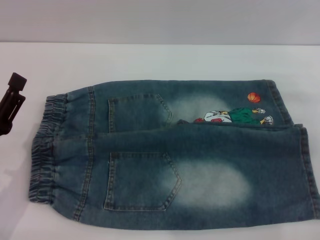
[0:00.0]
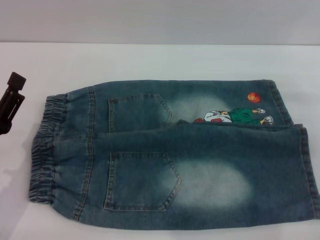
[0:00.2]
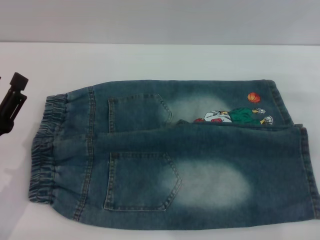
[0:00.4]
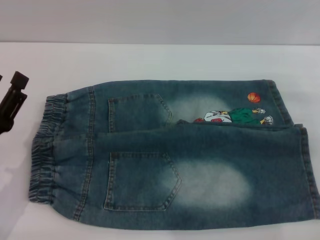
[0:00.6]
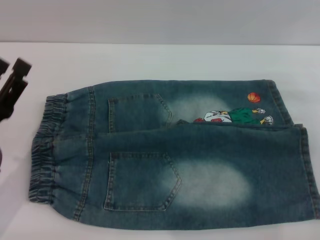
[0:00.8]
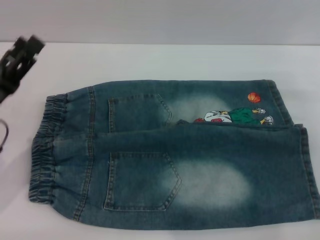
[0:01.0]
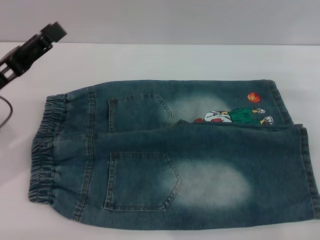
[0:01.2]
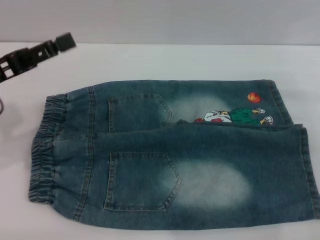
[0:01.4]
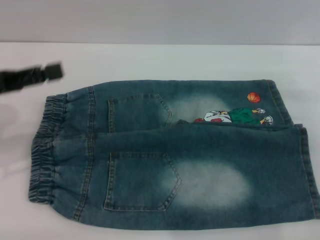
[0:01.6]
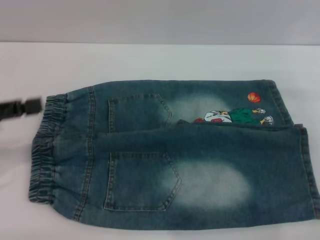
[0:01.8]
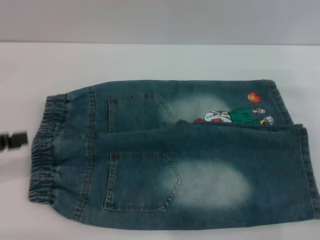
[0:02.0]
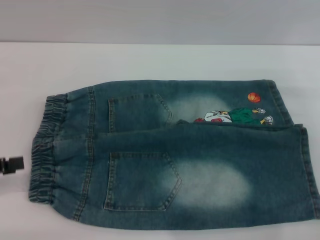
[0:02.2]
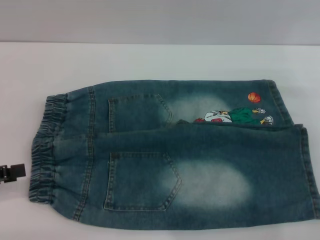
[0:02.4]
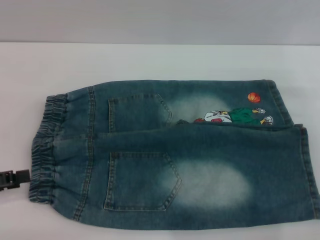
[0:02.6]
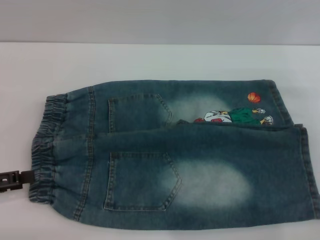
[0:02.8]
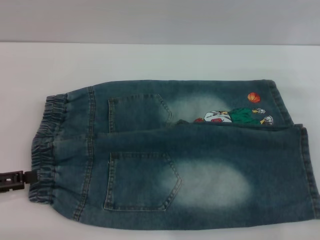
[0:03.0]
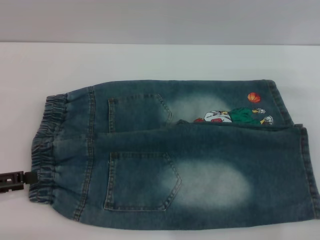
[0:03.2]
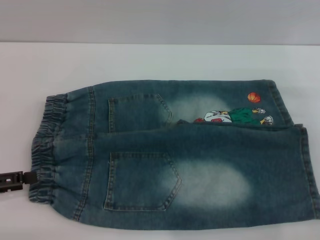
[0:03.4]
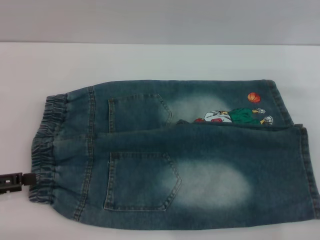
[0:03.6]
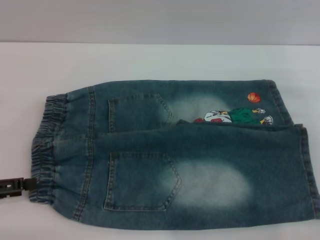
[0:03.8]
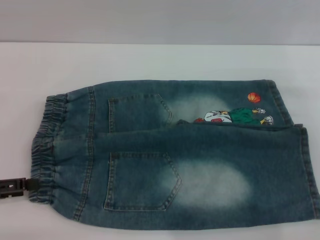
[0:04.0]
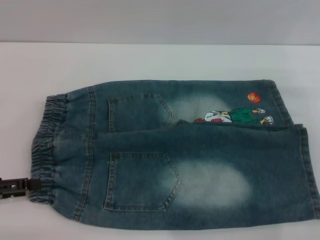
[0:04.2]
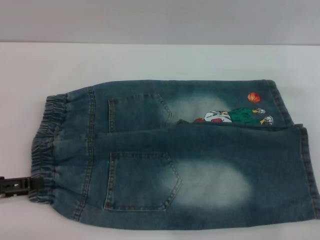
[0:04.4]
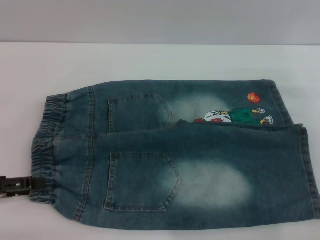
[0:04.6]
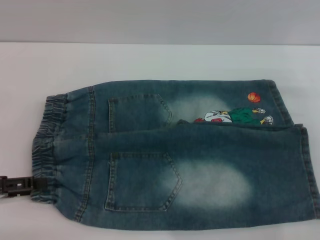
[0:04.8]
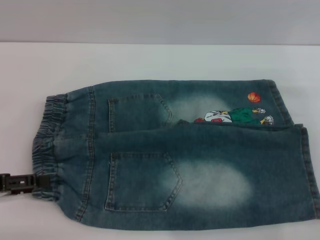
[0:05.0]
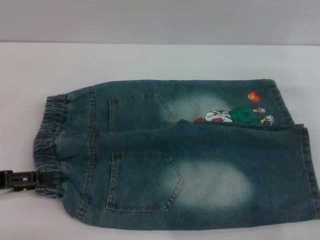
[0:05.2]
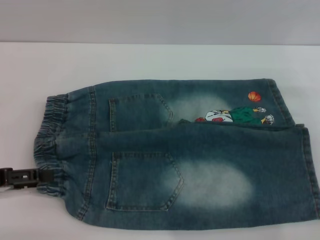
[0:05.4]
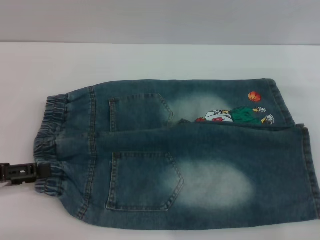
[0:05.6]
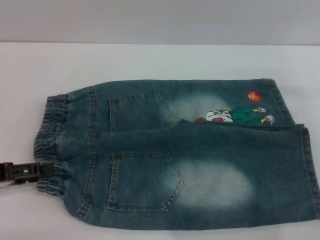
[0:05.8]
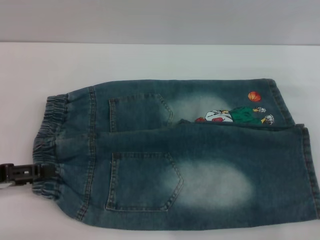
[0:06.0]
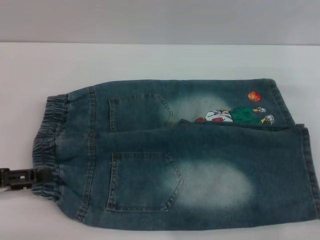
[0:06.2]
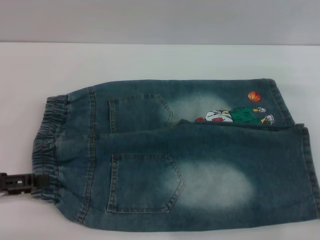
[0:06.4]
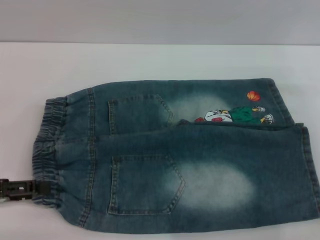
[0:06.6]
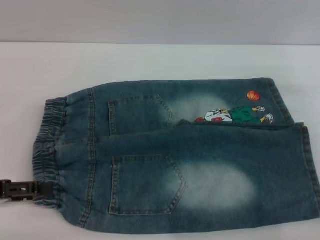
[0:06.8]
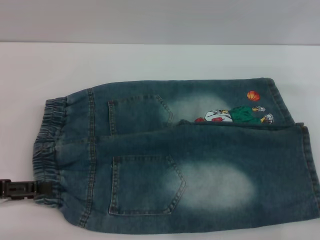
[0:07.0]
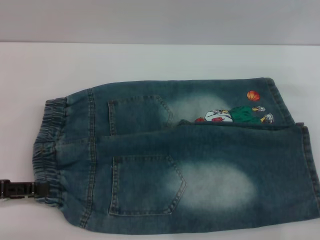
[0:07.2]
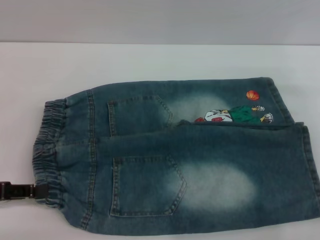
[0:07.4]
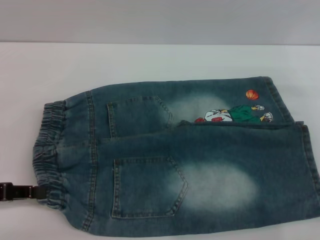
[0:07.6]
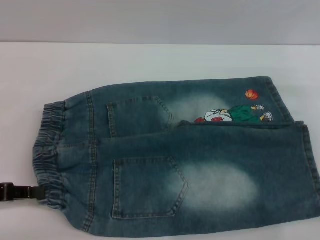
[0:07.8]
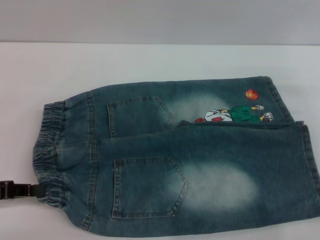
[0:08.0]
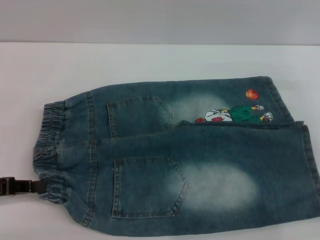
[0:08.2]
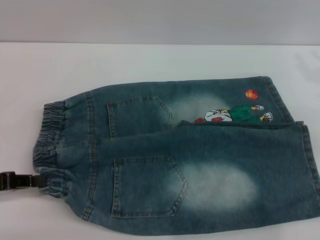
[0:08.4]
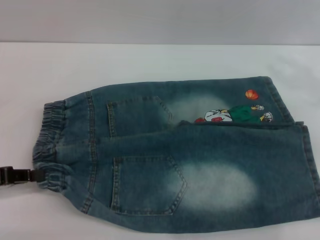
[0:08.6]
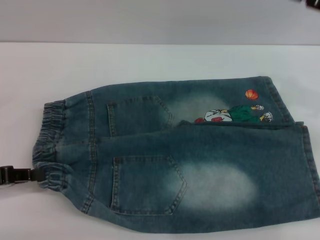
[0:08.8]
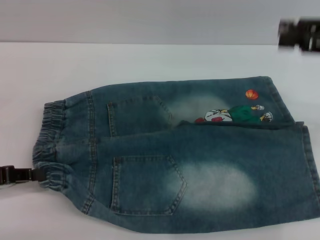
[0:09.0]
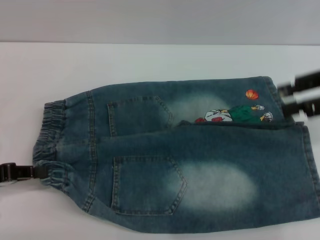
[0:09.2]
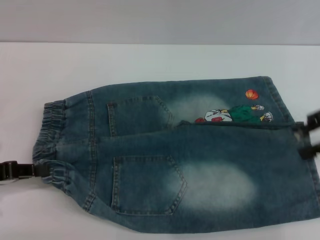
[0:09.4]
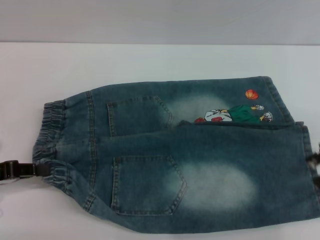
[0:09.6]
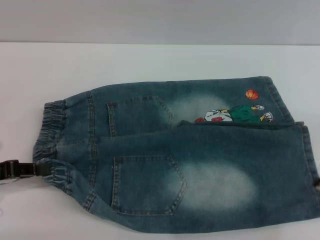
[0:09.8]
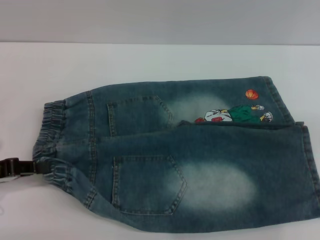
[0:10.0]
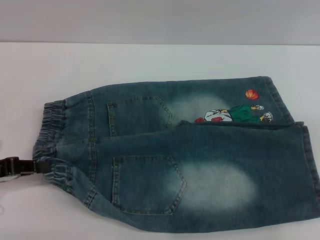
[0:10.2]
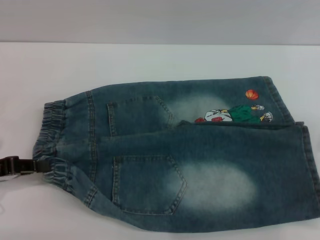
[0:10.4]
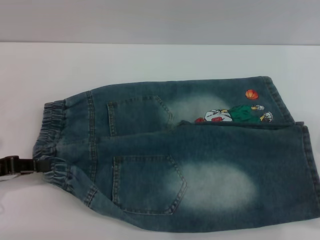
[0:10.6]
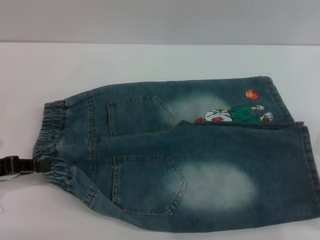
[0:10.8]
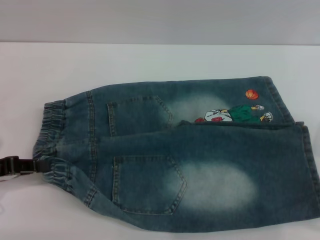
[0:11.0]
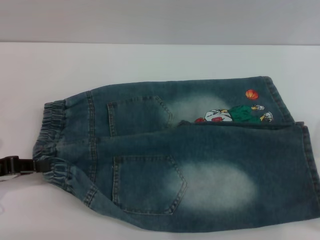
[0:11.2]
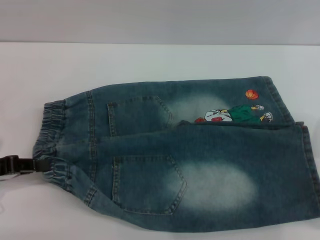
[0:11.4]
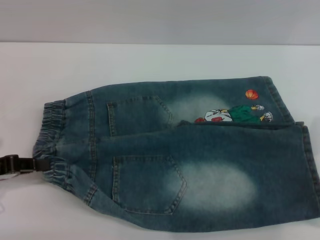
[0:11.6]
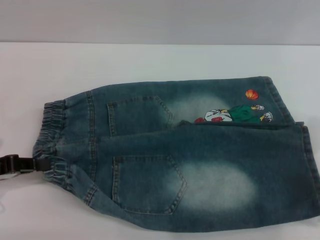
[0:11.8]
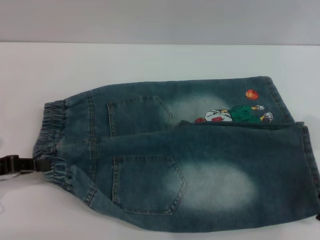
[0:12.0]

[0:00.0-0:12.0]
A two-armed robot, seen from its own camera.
0:00.0 to 0:01.6: The left gripper is displaced upward, forward and to the left by approximately 15 cm.
0:01.6 to 0:03.0: The left gripper heads downward and backward, covering roughly 10 cm.
0:03.0 to 0:04.4: Both grippers stay about where they are.
0:04.4 to 0:06.0: The grippers move only a little.
0:06.0 to 0:07.6: The left gripper closes.
0:07.6 to 0:09.0: The left gripper closes, while the right gripper travels upward by roughly 15 cm.
0:09.0 to 0:10.4: The right gripper goes about 10 cm downward.

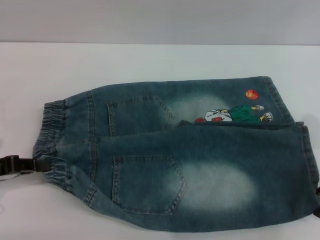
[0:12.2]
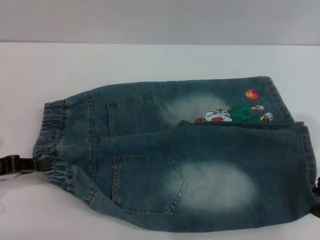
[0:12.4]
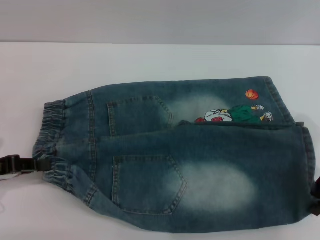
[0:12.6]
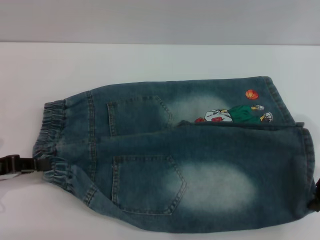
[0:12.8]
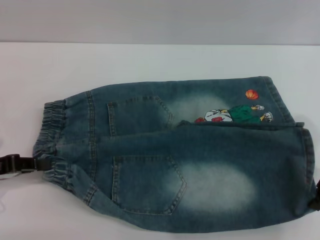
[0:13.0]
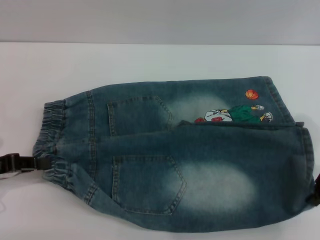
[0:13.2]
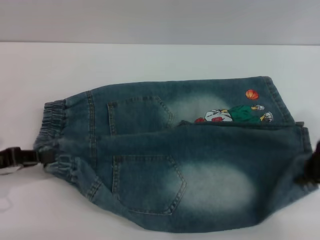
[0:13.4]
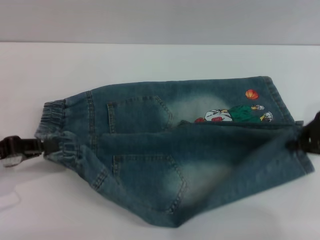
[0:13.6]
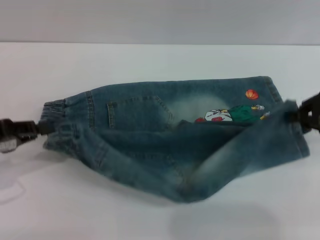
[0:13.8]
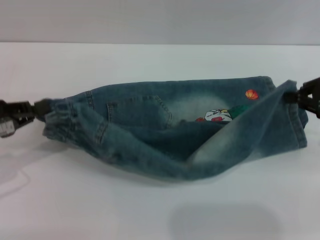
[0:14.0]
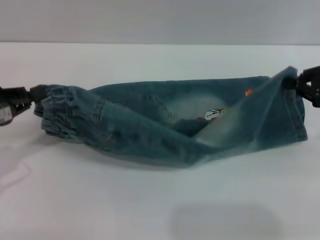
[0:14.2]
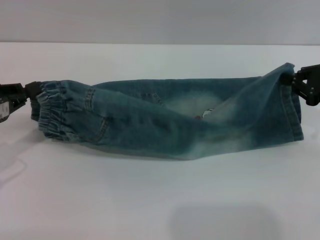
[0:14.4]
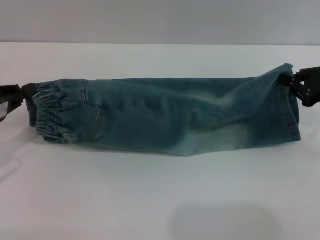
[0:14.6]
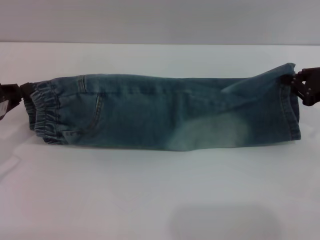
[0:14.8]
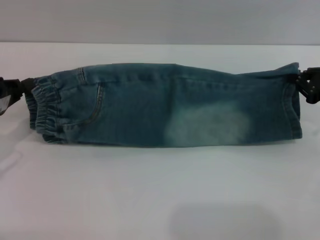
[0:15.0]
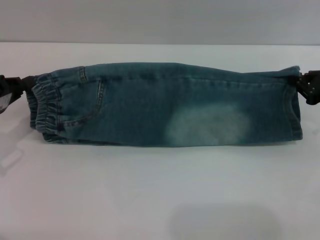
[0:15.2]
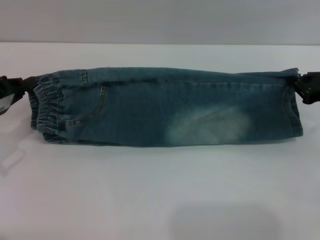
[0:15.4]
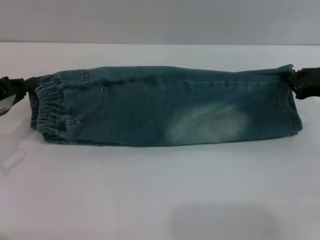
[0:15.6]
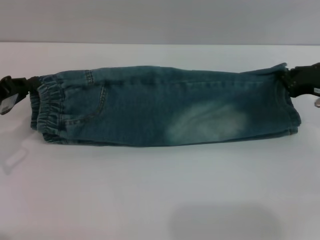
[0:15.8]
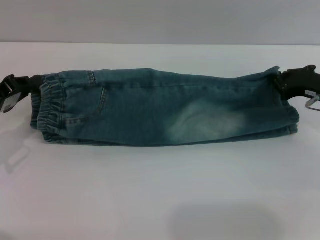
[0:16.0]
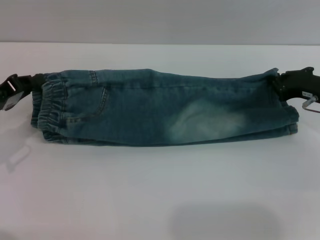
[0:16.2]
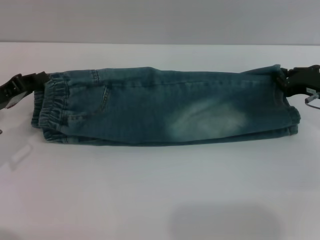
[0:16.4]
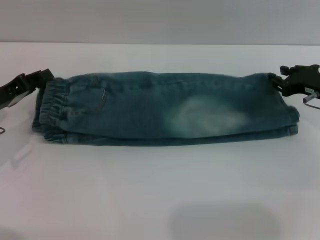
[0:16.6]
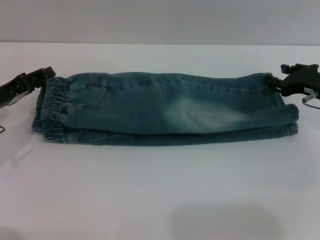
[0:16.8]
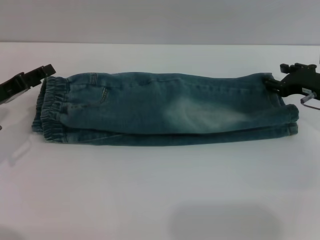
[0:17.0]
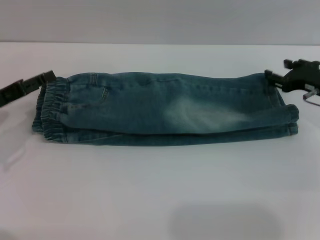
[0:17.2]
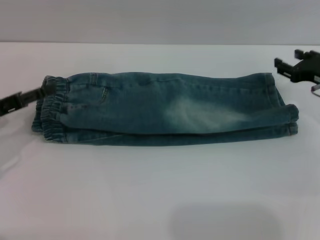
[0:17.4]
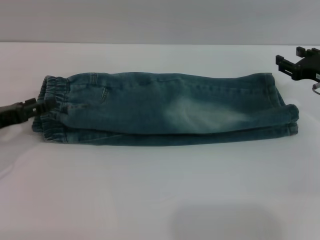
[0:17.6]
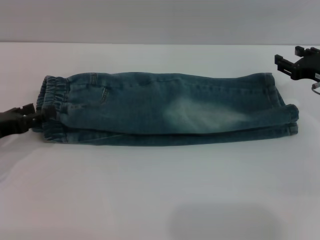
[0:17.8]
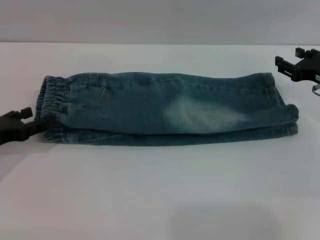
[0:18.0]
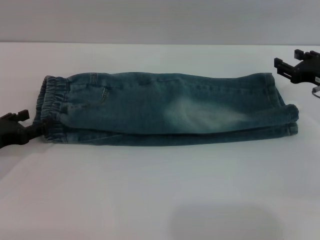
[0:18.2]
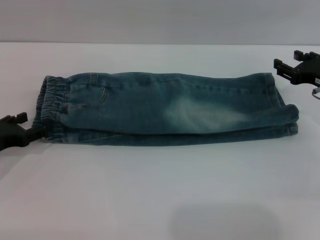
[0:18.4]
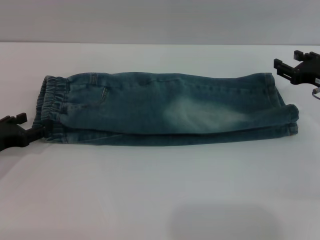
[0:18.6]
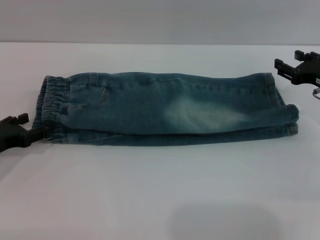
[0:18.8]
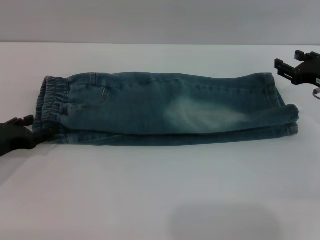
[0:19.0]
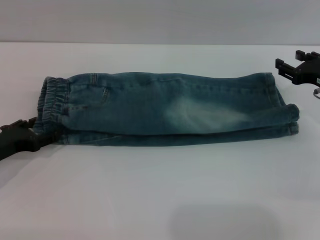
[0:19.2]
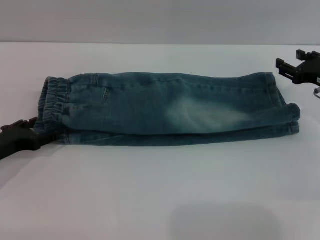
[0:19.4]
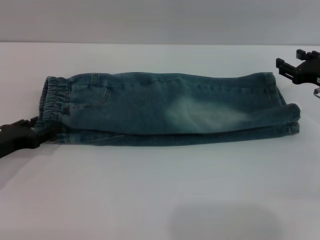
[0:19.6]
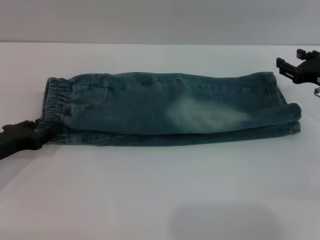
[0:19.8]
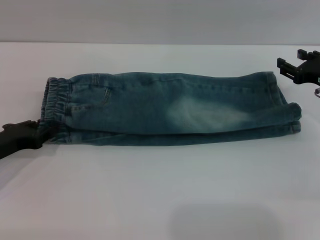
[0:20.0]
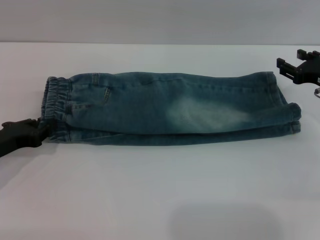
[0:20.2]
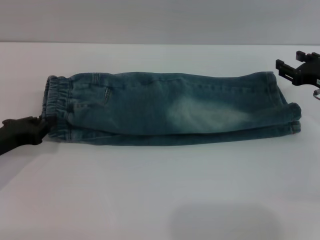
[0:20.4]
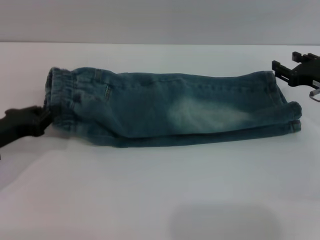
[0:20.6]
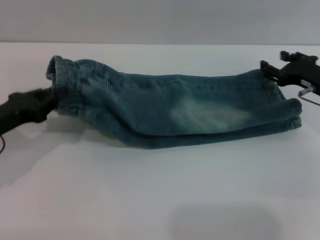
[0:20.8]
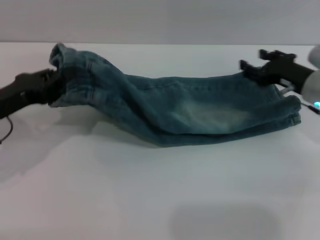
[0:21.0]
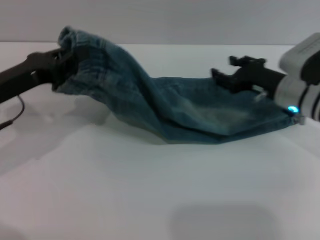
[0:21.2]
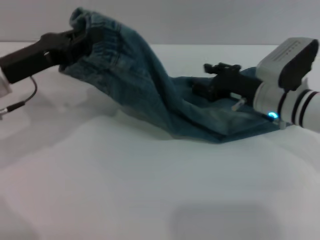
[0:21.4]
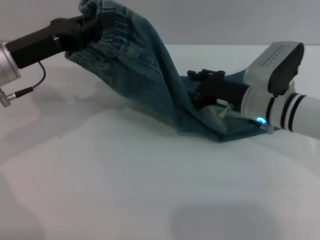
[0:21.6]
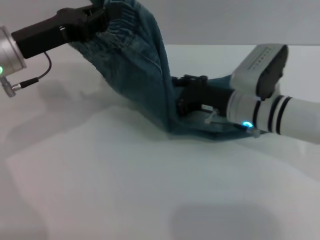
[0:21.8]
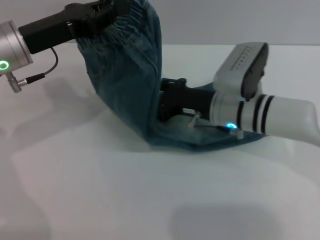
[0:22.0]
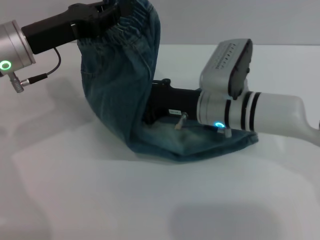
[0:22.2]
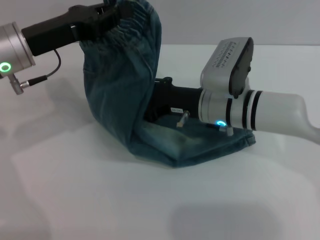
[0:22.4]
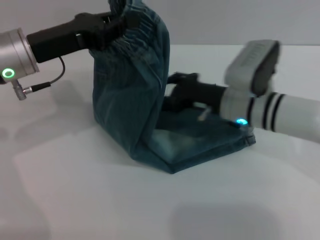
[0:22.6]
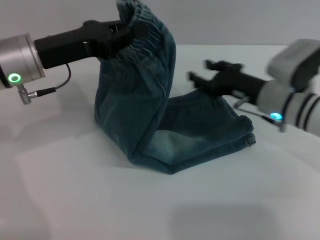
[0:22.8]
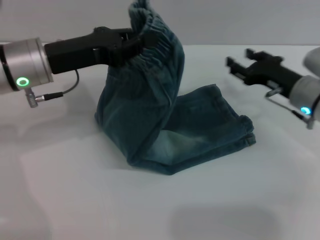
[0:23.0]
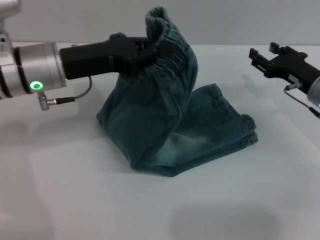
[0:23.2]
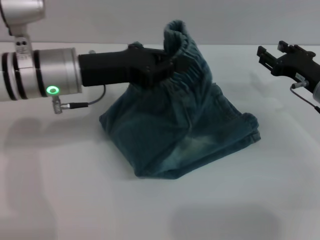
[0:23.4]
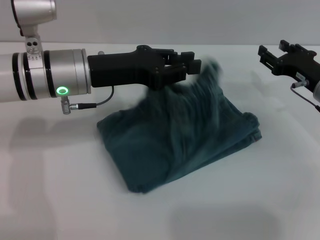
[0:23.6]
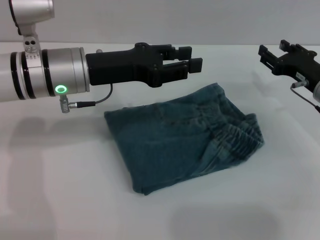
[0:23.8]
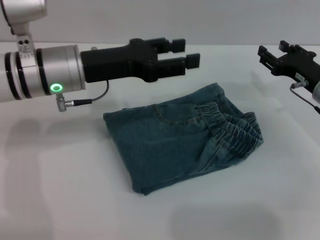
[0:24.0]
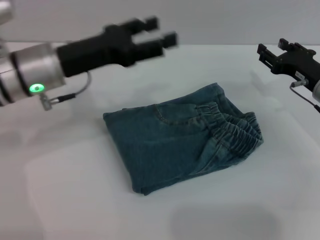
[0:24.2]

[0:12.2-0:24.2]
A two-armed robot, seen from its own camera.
Step, 0:12.2 to 0:17.2: Fold the bottom of the pants upward with both grippers.
Step, 0:17.4 to 0:24.0: Fold the pants from left to right with the left gripper.
0:12.2 to 0:13.8: The right gripper closes its fingers.
0:13.8 to 0:15.2: The left gripper heads forward, covering approximately 5 cm, while the right gripper travels downward by some 5 cm.
0:15.2 to 0:16.6: The right gripper changes place by about 5 cm.
0:16.6 to 0:18.2: The left gripper moves roughly 5 cm, and opens. The right gripper opens its fingers.
0:18.2 to 0:19.8: The grippers stay close to where they were, moving slightly.
0:19.8 to 0:21.2: The right gripper heads to the left, covering roughly 10 cm. Meanwhile the left gripper is displaced upward by roughly 10 cm, and closes up.
0:21.2 to 0:22.6: The left gripper is displaced to the right by about 5 cm. The right gripper travels to the left by some 10 cm.
0:22.6 to 0:24.2: The left gripper opens up. Meanwhile the right gripper shifts approximately 15 cm to the right.
